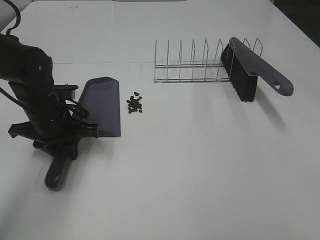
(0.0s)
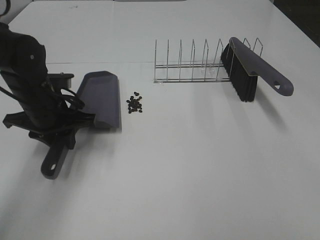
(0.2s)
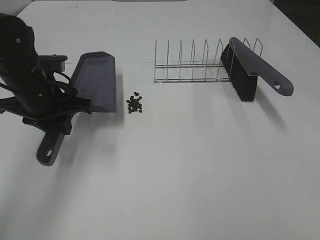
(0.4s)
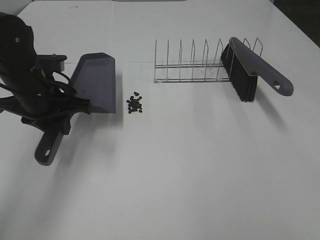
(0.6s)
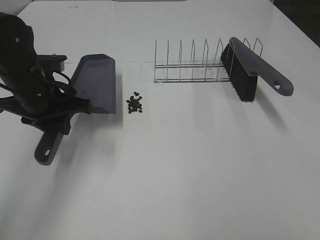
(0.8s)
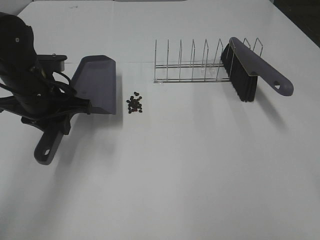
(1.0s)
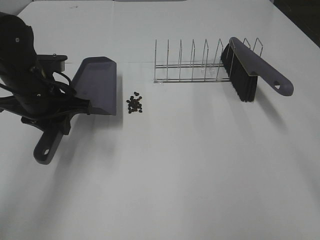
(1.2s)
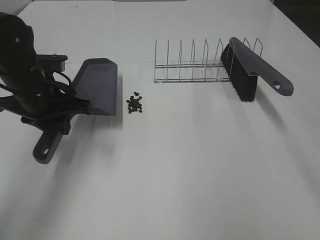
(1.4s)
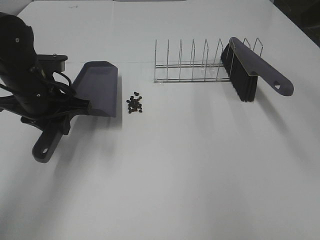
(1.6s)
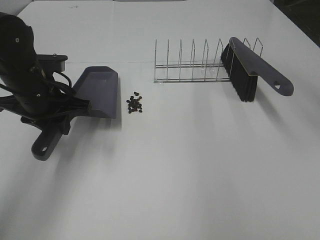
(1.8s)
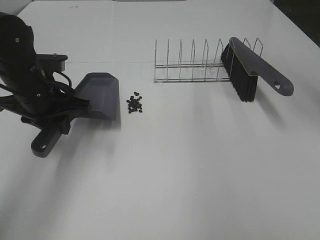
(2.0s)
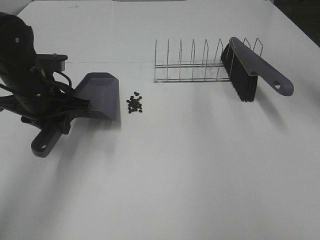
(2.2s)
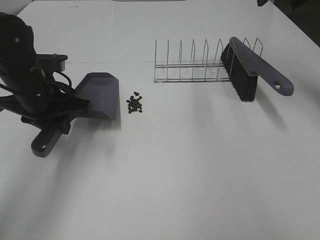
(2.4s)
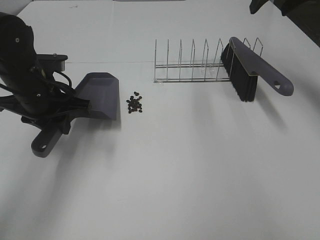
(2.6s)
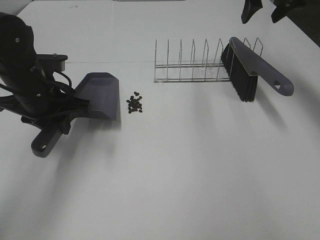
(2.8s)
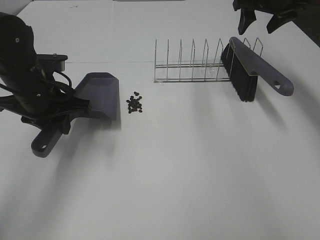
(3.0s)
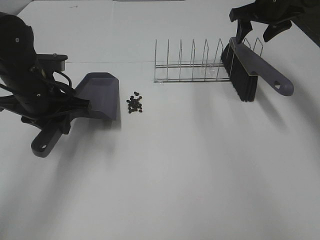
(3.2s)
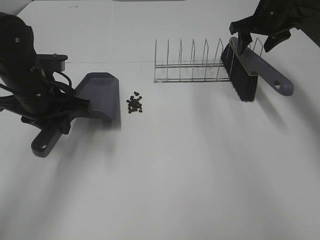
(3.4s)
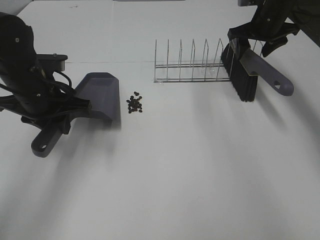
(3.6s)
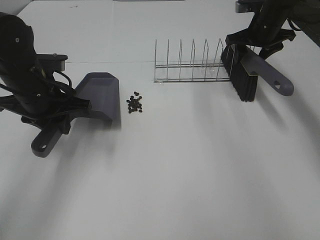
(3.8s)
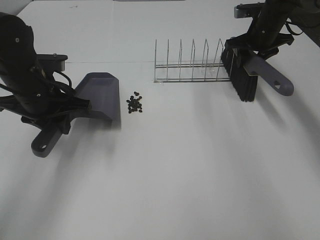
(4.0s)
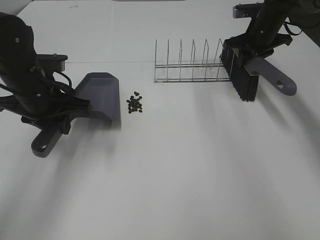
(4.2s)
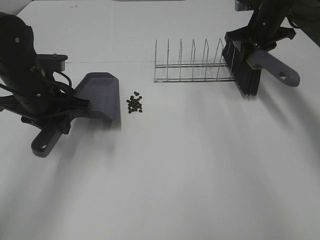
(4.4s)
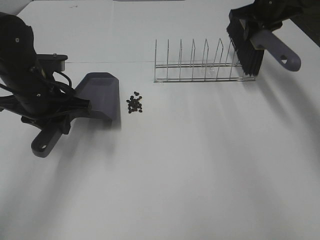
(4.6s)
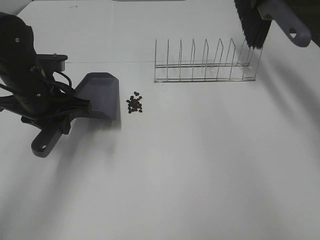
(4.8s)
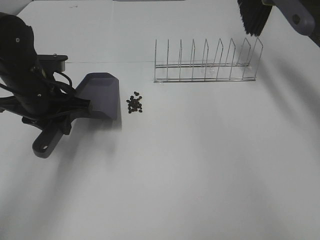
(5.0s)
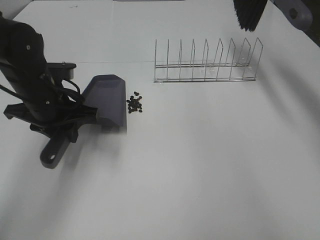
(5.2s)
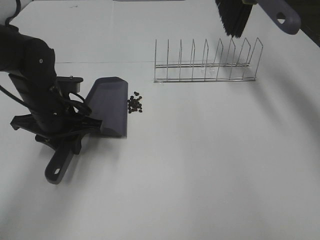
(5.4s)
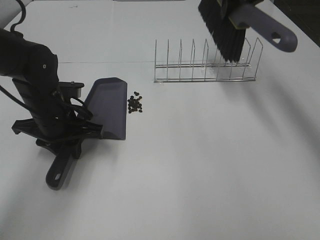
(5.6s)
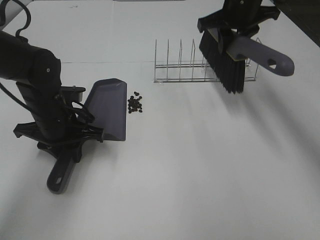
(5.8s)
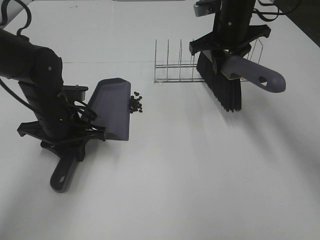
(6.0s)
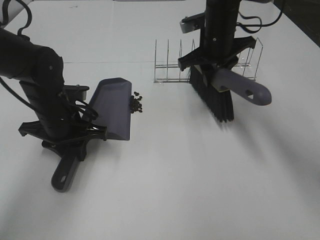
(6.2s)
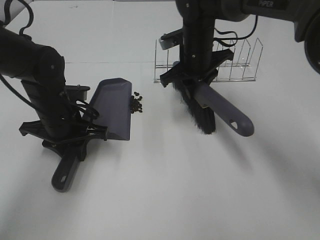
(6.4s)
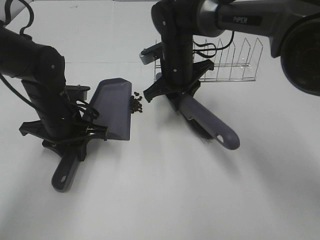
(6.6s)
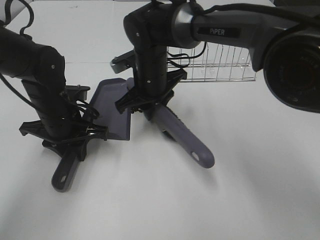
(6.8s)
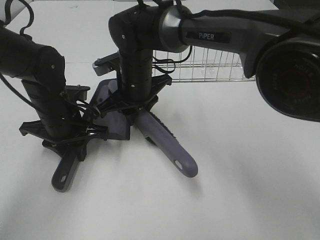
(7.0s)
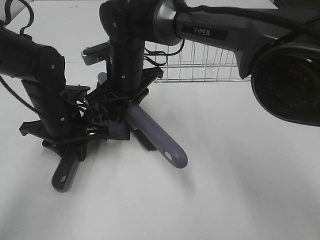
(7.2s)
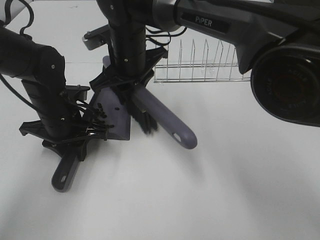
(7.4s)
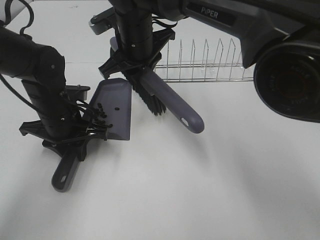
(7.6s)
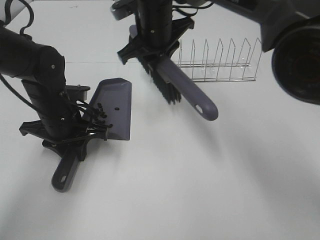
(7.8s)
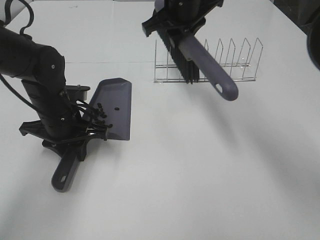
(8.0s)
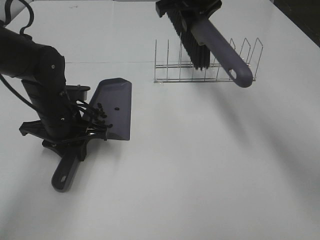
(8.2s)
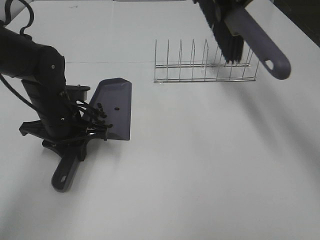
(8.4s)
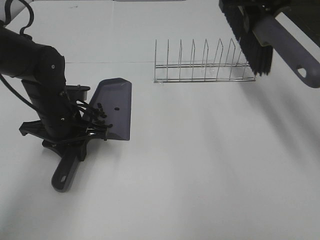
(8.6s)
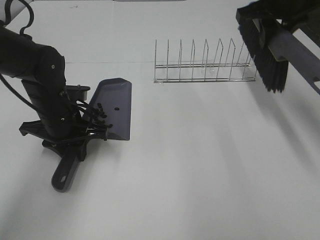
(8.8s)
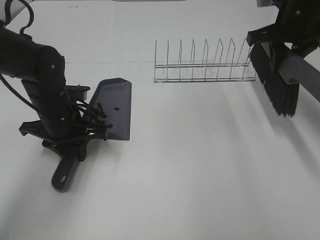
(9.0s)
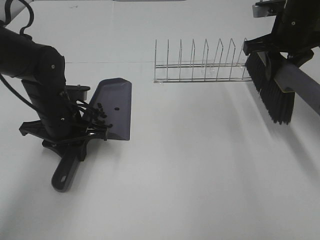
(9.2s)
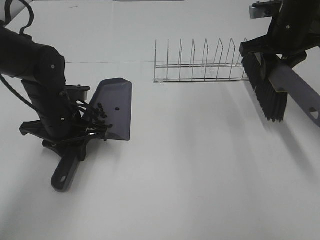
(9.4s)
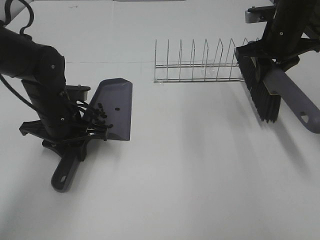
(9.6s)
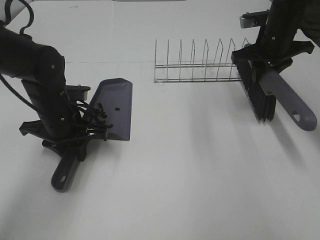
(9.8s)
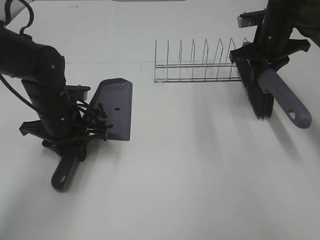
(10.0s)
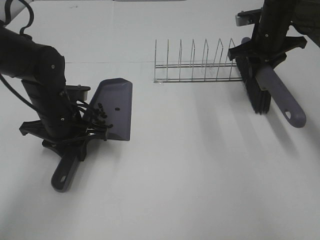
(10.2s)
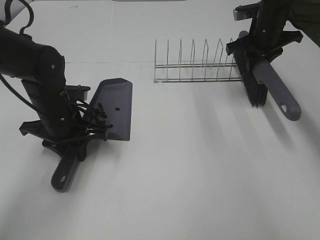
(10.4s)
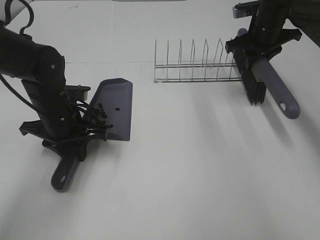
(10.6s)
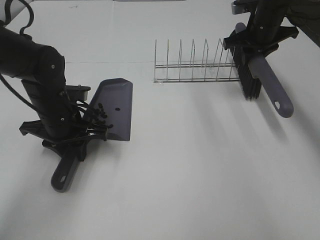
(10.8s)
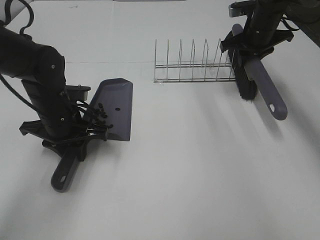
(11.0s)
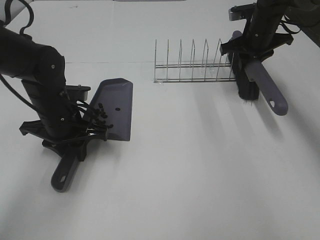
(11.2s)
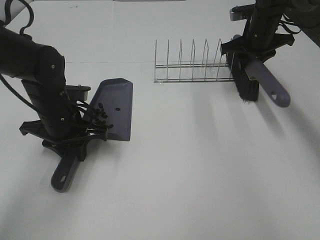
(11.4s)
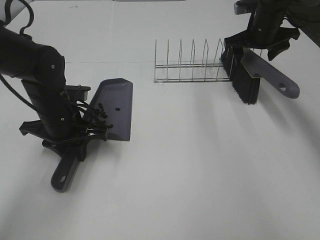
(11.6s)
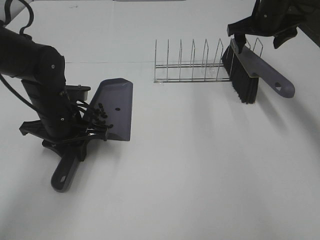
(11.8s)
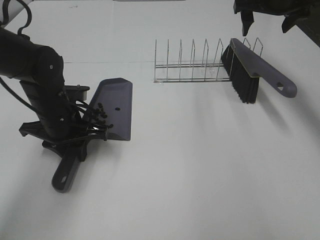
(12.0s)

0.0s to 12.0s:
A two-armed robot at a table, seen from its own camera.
Task of the whole recording: Sweep Coffee Bean.
Step, 0.6s to 4.2s: Right hand:grab the broom.
Step, 4.4s to 7.6s: Right hand:sweep the coffee beans into the dustpan.
Step, 7.8s to 11.6s: Right hand:place the broom on the rack.
0.0s to 1.6s: The left gripper heads upward, covering some 5 cm; the right gripper travels forward by roughly 25 cm.
1.6s to 3.0s: The right gripper travels forward by approximately 25 cm.
3.0s to 4.4s: The right gripper moves downward, approximately 5 cm, and closes.
4.4s to 6.0s: The left gripper moves downward, approximately 5 cm; the right gripper is displaced to the left and backward by some 15 cm, and travels upward and back again, some 15 cm each way.
6.0s to 7.6s: The right gripper heads to the left, covering roughly 20 cm.
7.6s to 9.0s: The right gripper goes some 30 cm to the right.
9.0s to 10.4s: The right gripper heads forward and downward, covering approximately 10 cm.
10.4s to 12.0s: The right gripper travels upward by roughly 10 cm, and opens up.

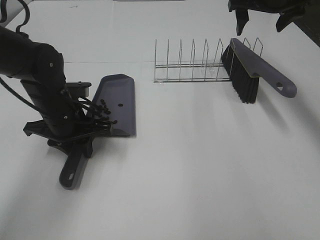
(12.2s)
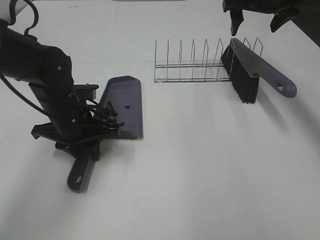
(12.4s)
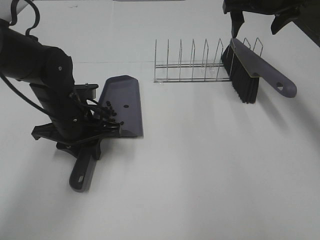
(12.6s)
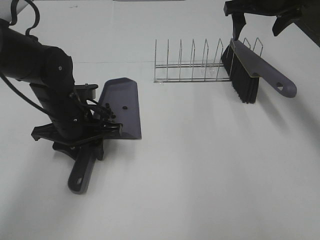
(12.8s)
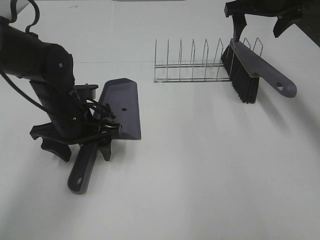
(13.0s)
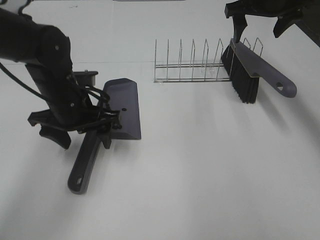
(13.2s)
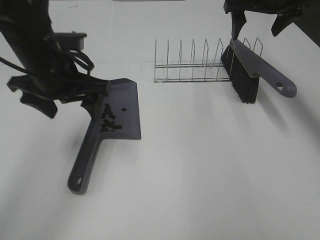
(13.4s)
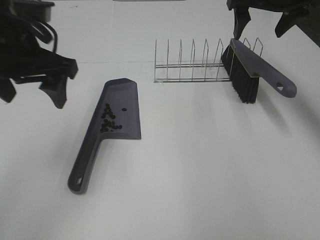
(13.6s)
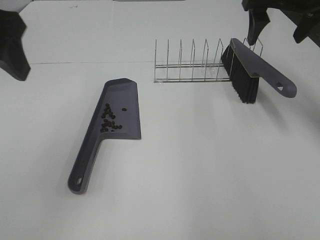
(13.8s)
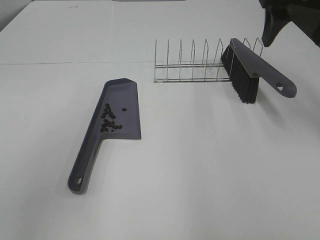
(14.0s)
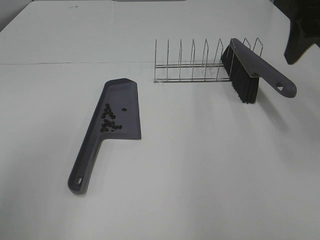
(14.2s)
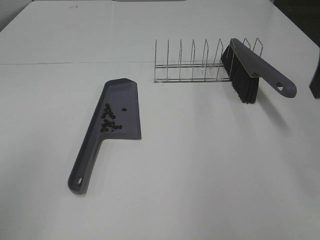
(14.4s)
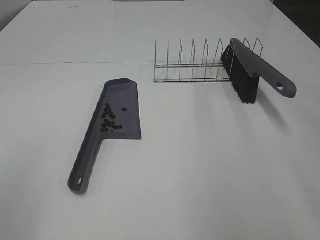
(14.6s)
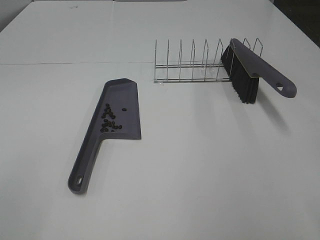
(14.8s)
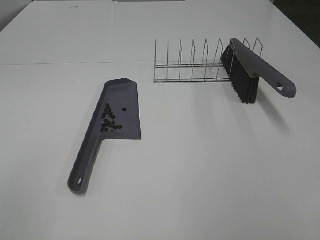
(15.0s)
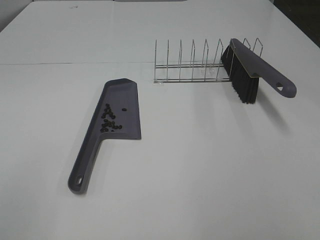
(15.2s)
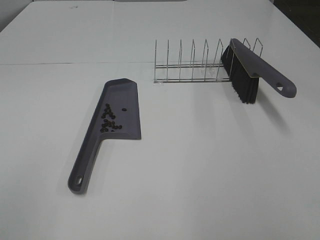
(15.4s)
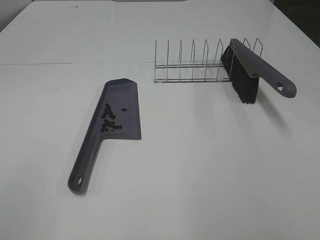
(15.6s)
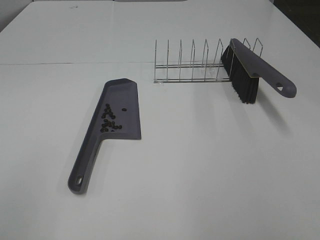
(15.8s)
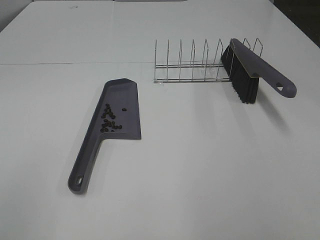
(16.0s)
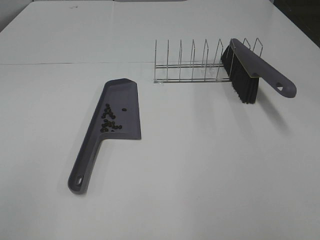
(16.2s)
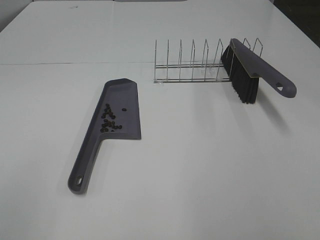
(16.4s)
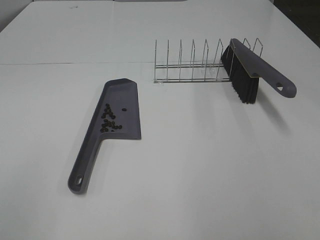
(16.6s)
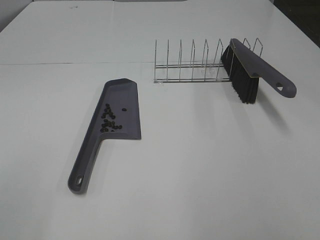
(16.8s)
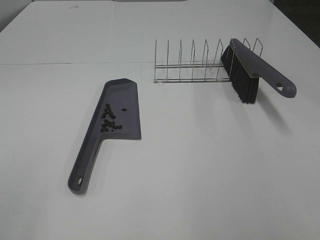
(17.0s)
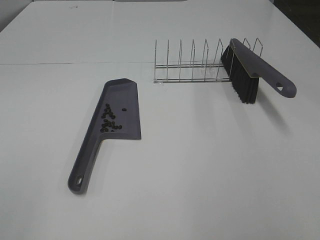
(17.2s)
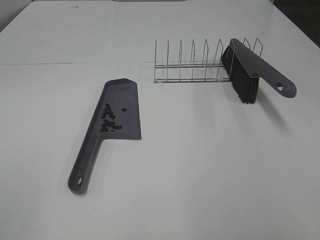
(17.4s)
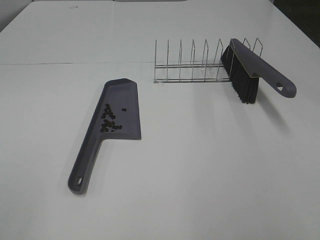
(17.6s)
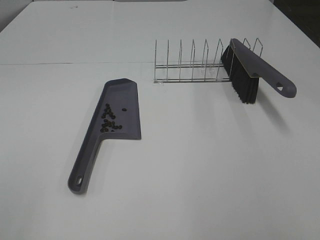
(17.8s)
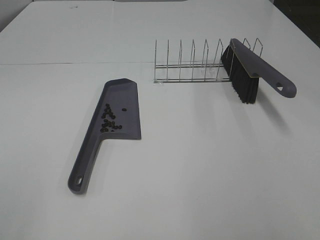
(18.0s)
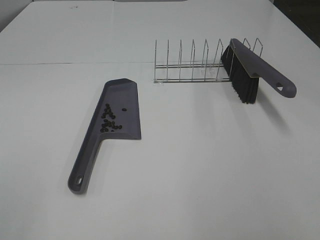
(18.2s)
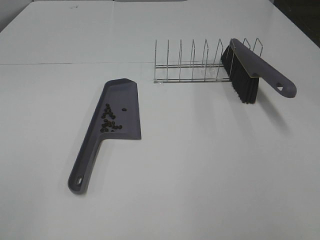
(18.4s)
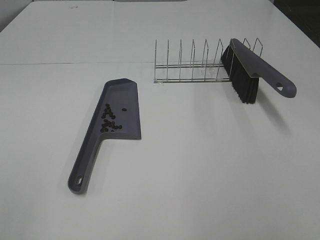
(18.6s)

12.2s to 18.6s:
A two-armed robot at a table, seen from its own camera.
Task of the whole recording: Sweep Coffee Bean.
Step, 12.2s to 13.0s: Left hand:place the dustpan on the table.
12.2s to 13.8s: The left gripper travels upward and backward by roughly 25 cm, and opens. The right gripper goes approximately 10 cm backward.
13.8s to 15.4s: The right gripper moves backward, about 40 cm; the left gripper goes roughly 25 cm backward and to the left.

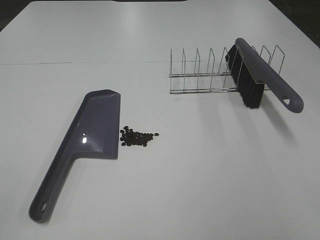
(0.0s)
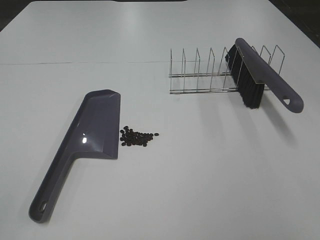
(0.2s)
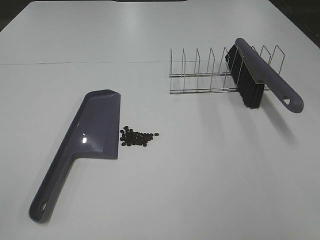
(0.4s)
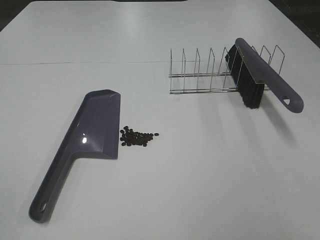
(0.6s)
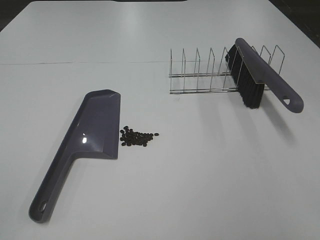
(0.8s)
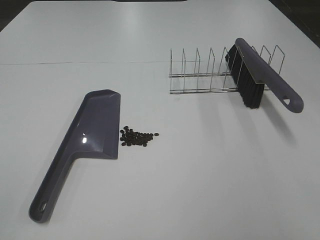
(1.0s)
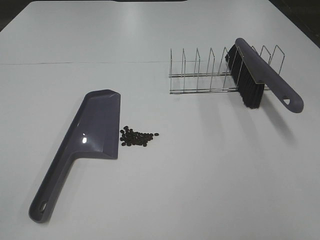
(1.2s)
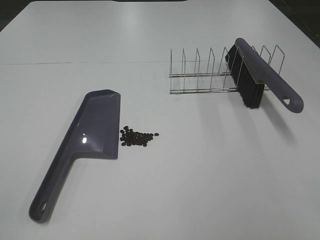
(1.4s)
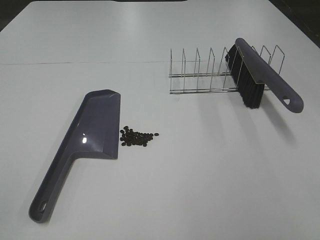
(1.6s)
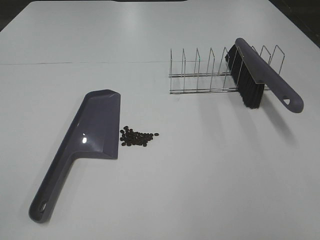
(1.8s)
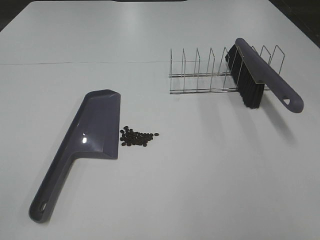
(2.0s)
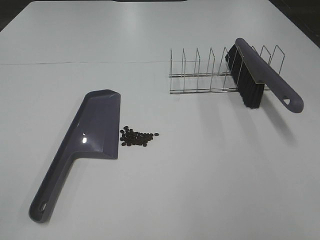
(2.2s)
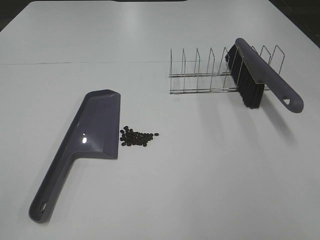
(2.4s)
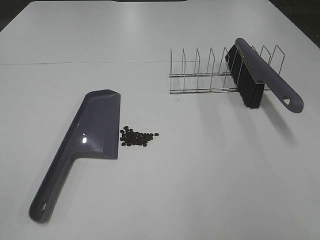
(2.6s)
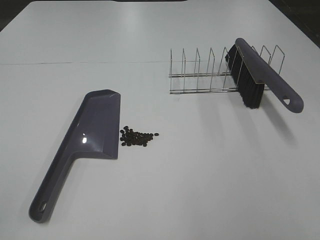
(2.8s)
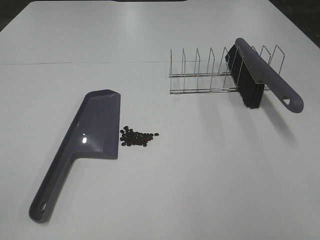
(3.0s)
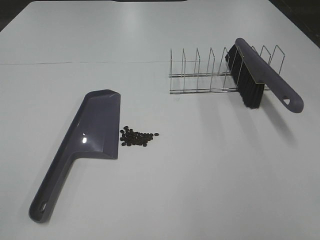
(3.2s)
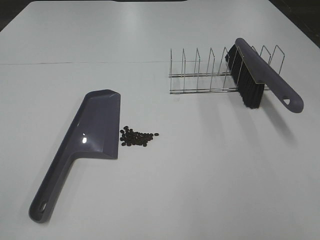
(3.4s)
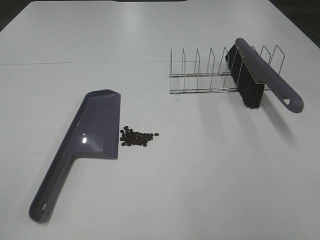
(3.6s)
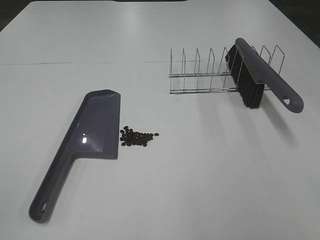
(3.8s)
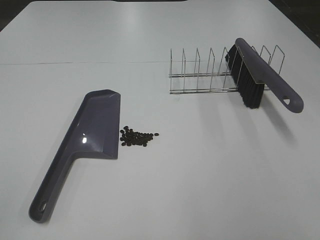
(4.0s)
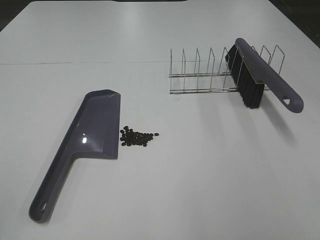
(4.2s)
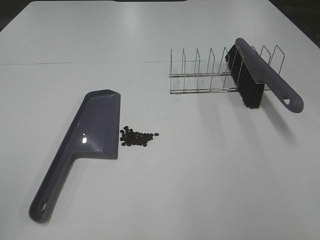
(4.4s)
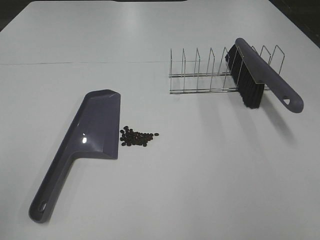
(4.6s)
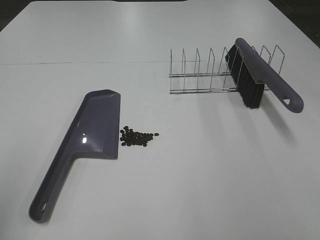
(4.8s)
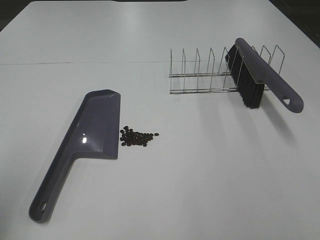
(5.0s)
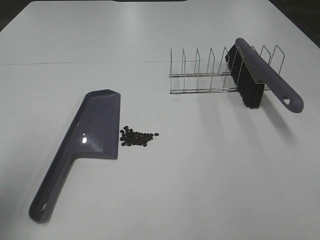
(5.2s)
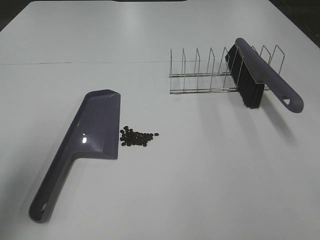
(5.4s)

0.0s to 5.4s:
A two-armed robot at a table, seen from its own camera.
Task of the whole recording: Sweep Coffee Bean.
0.0s to 1.4s: Both grippers stay put.
2.8s to 4.0s: The two grippers keep their place.
4.0s to 5.4s: The left gripper heads forward, covering approximately 20 cm.
